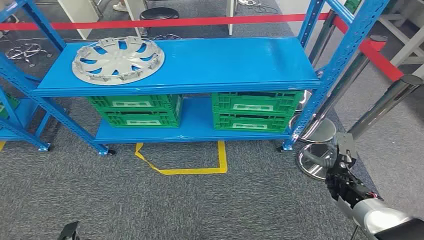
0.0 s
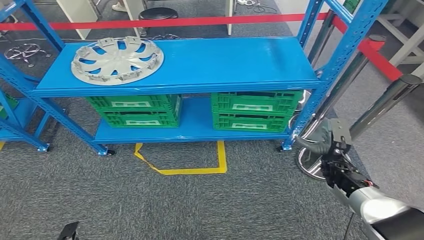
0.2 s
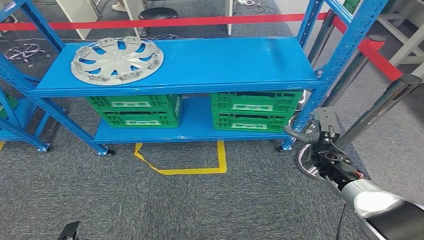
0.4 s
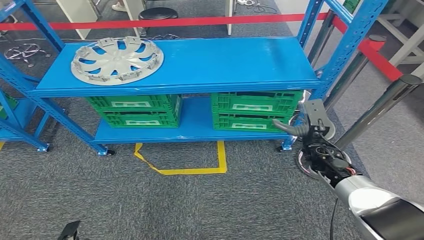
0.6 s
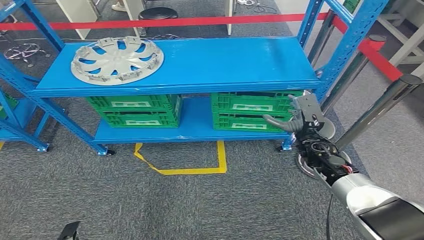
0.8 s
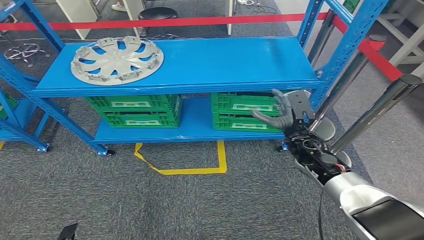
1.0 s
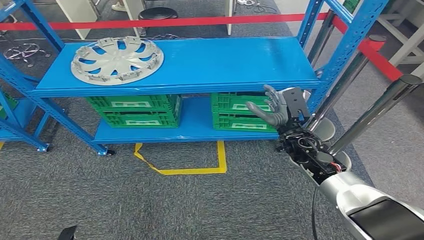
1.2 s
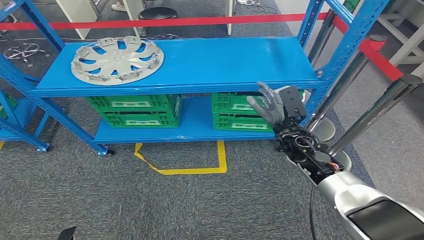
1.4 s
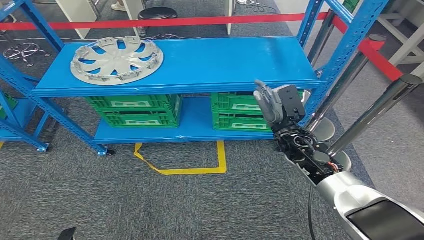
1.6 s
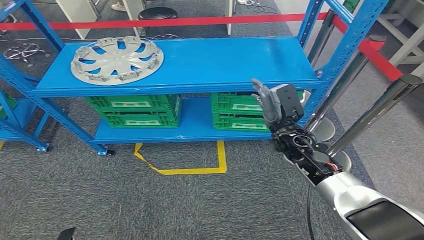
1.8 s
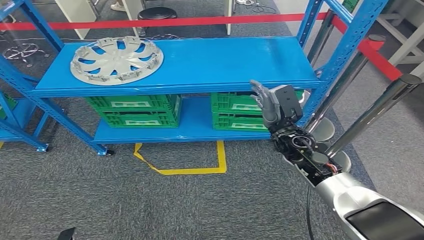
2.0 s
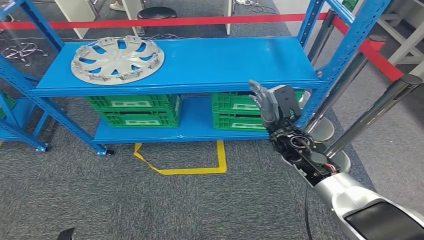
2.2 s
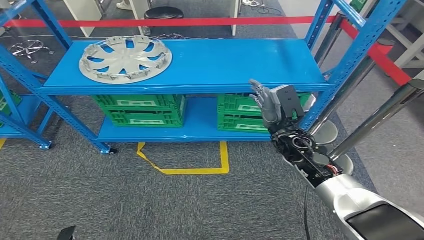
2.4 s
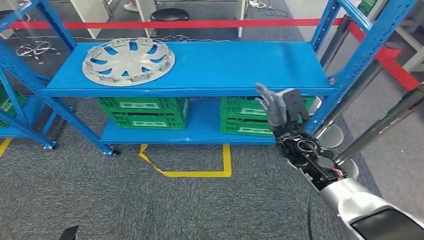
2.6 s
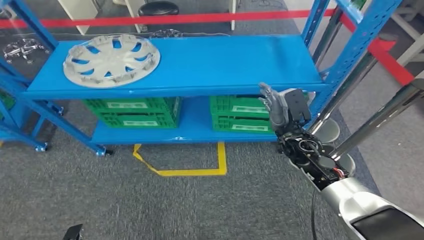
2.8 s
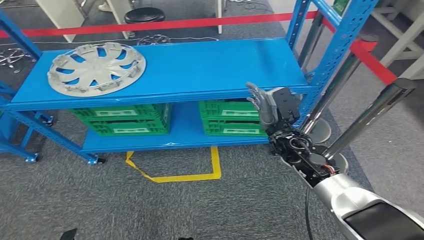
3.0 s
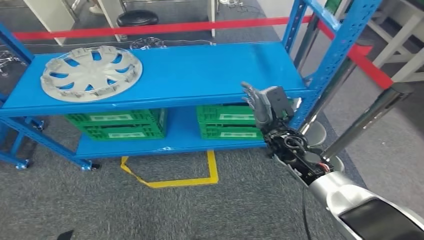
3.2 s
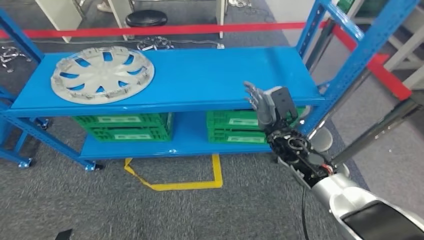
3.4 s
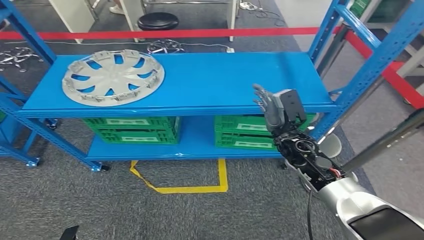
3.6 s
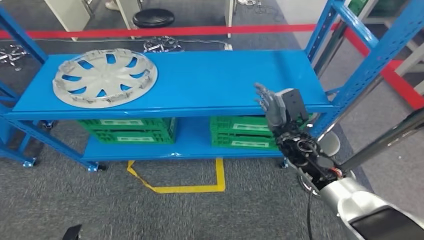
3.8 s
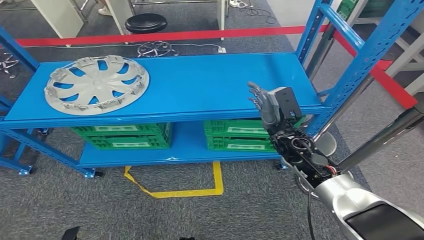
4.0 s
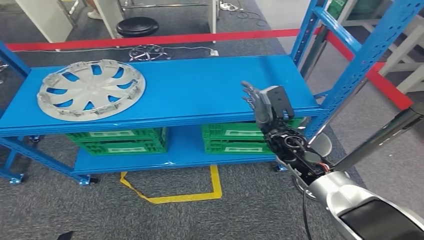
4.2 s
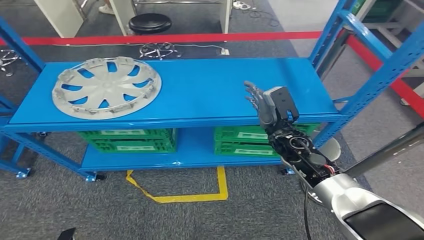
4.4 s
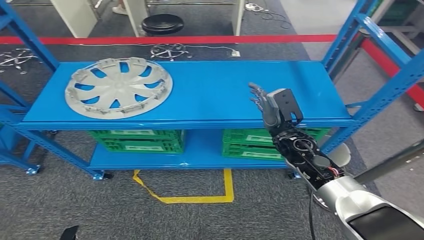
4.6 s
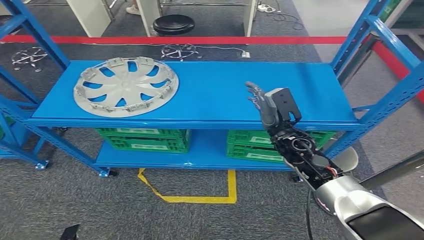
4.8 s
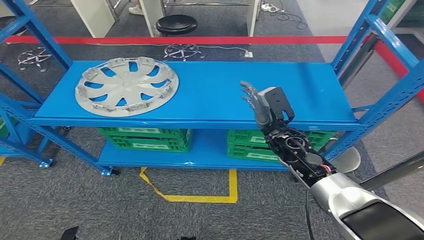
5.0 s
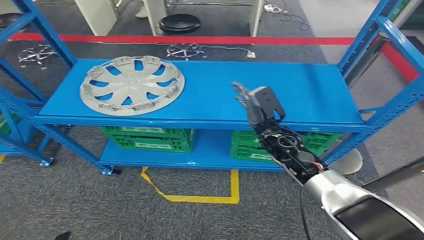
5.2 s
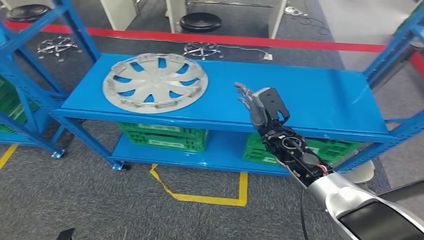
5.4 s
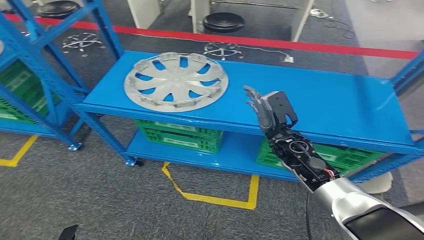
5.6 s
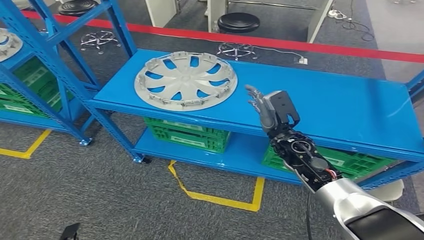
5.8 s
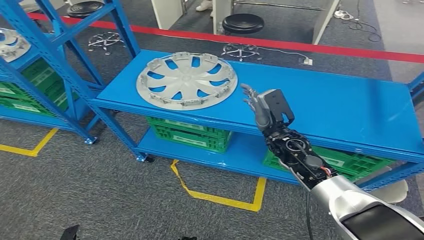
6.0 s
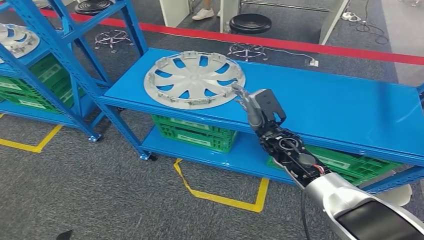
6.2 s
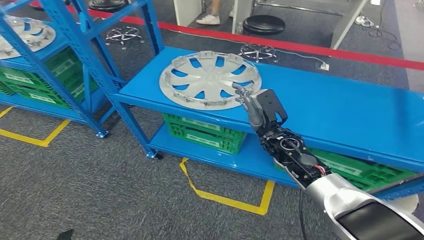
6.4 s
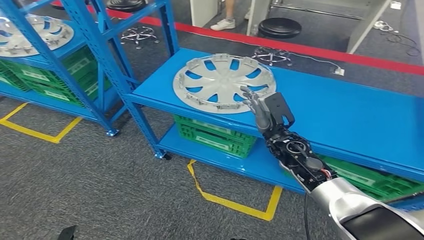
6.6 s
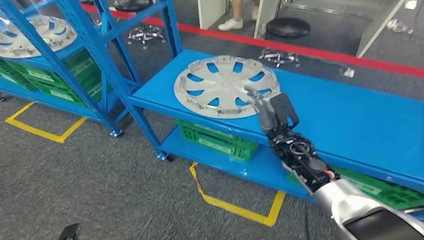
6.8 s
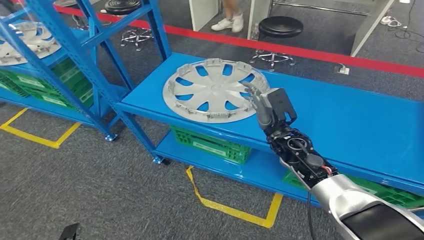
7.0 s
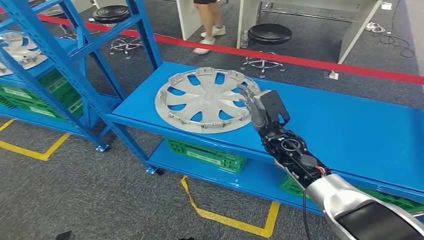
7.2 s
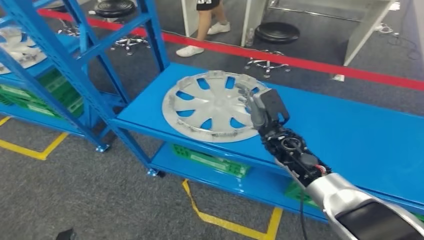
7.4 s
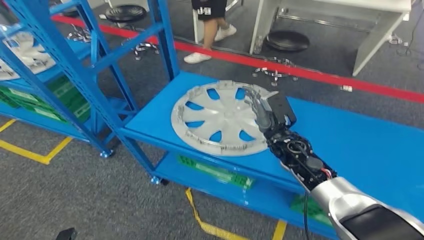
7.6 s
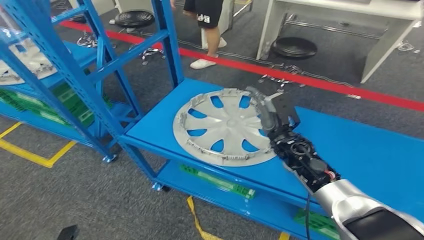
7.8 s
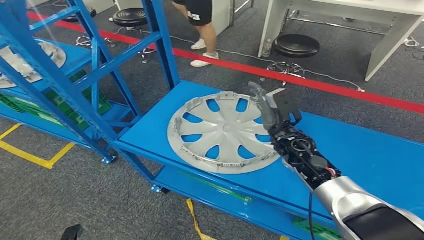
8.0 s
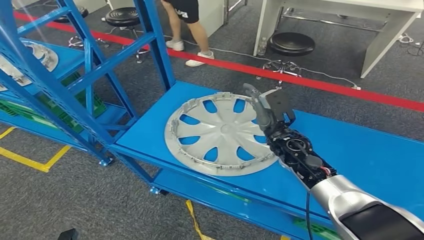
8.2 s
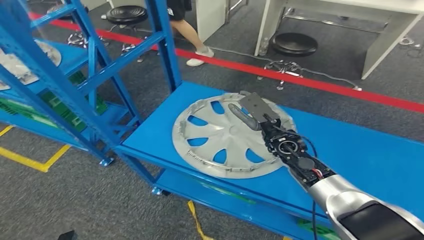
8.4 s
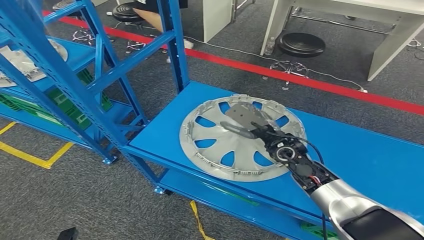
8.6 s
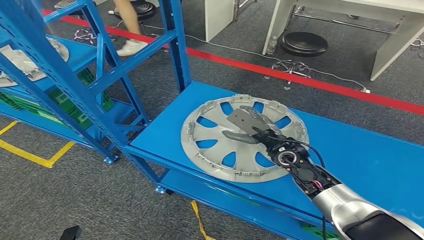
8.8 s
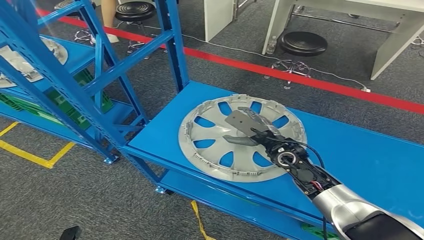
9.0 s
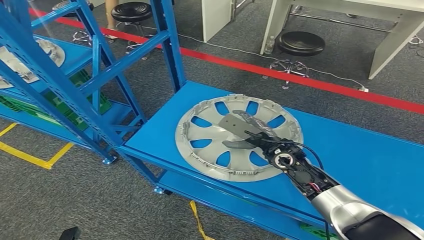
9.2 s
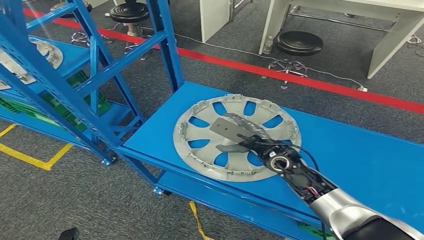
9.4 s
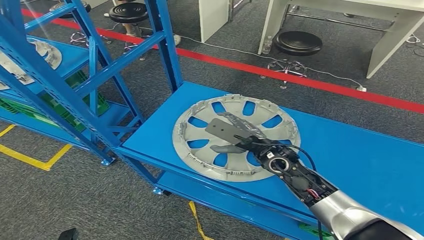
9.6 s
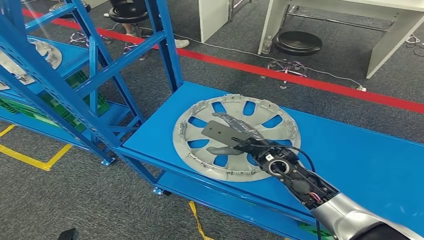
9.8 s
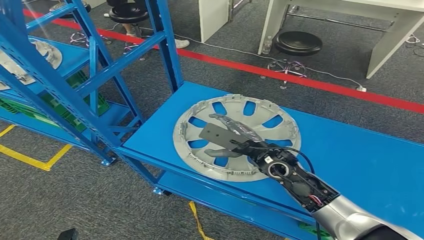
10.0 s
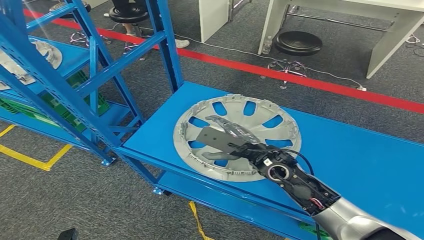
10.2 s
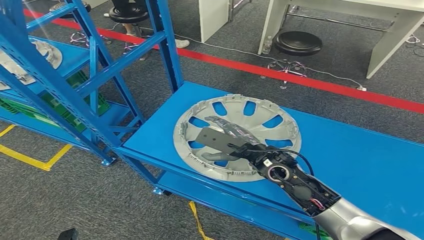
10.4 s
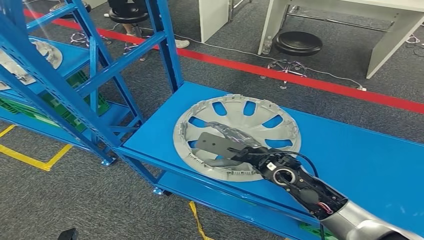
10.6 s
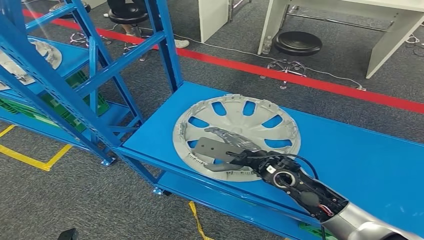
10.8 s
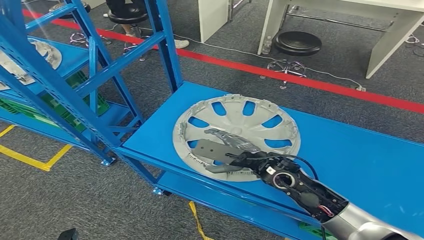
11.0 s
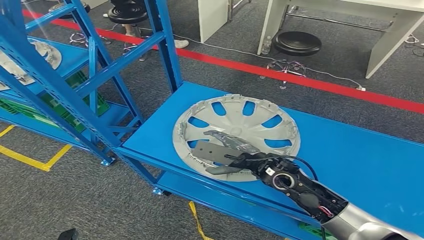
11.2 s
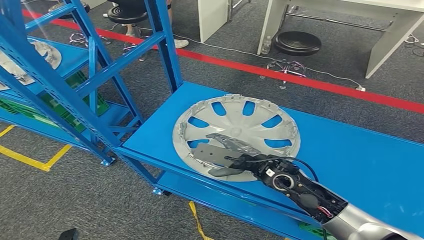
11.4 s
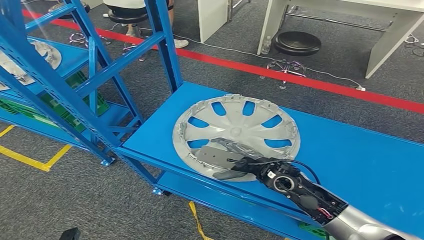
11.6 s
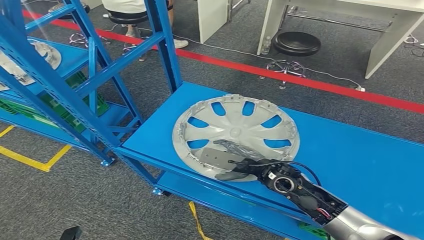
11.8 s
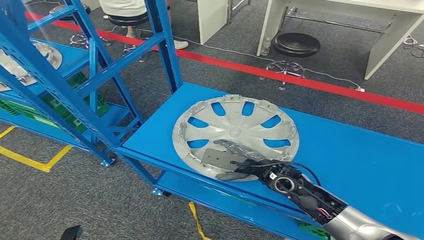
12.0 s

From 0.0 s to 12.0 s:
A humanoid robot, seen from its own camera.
From 10.4 s to 12.0 s: The right hand goes approximately 5 cm downward.

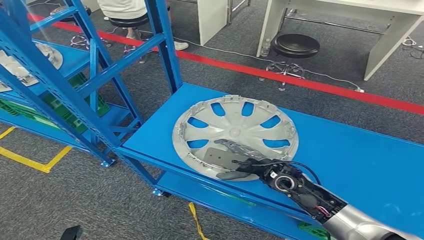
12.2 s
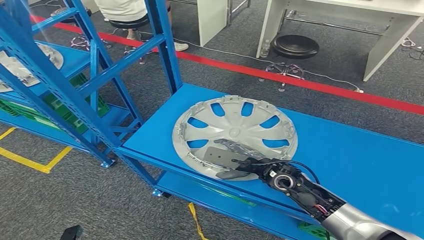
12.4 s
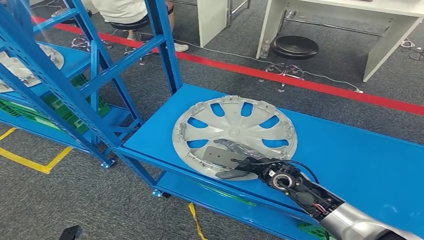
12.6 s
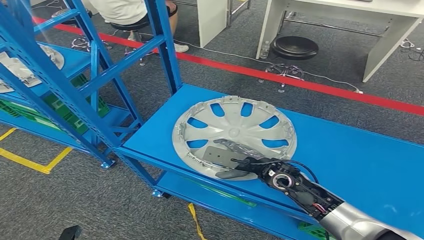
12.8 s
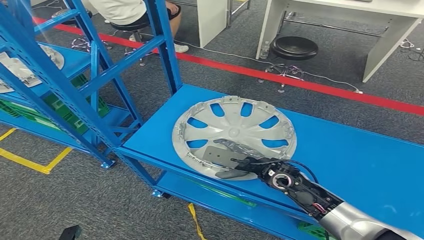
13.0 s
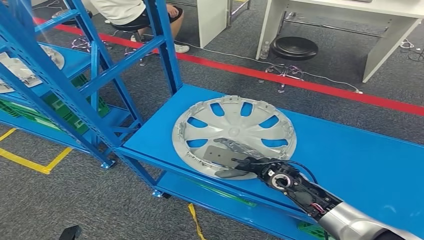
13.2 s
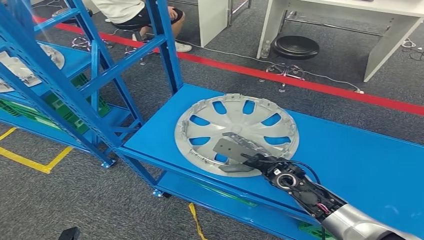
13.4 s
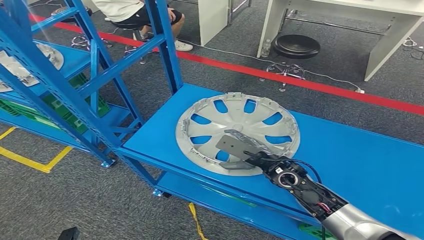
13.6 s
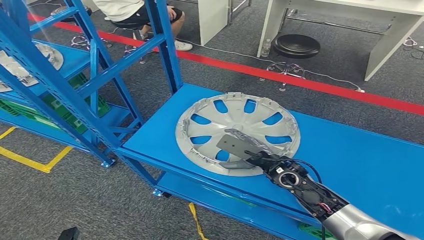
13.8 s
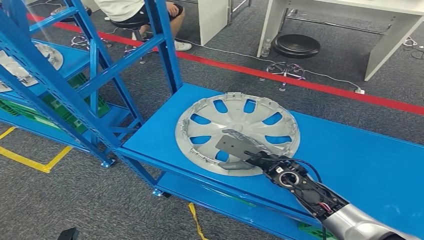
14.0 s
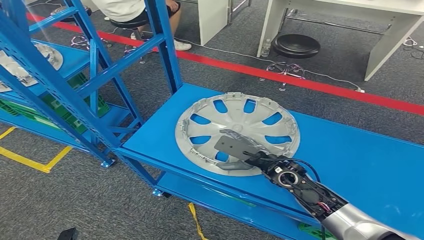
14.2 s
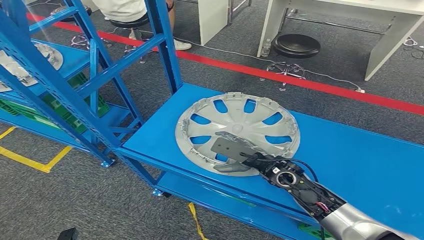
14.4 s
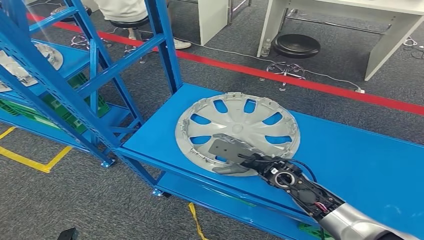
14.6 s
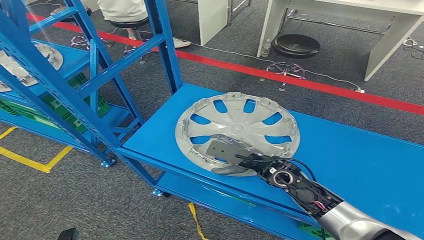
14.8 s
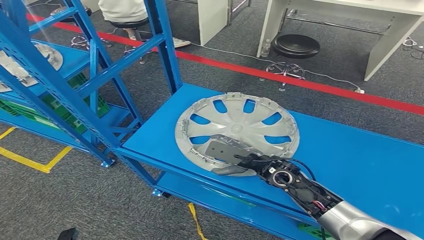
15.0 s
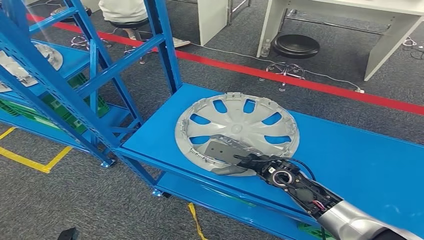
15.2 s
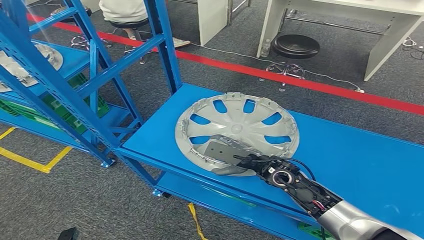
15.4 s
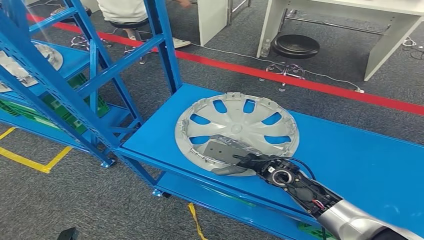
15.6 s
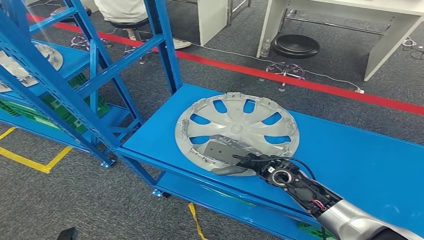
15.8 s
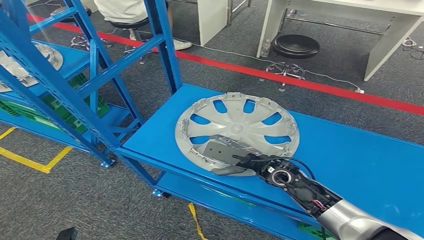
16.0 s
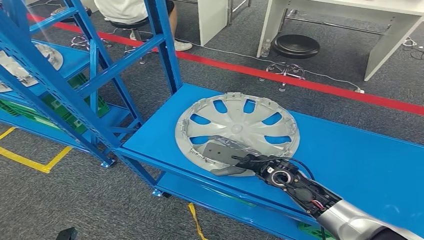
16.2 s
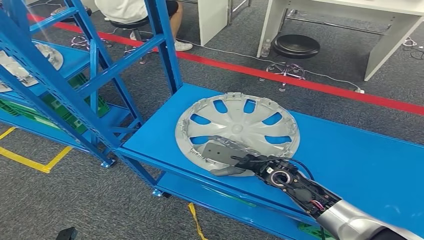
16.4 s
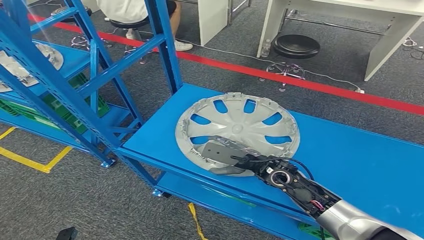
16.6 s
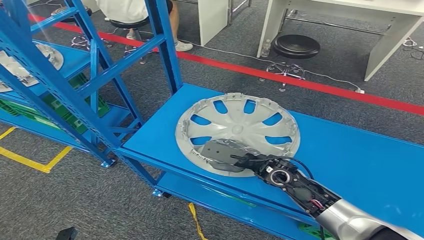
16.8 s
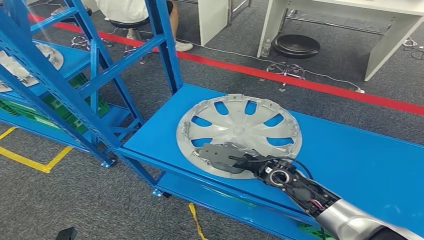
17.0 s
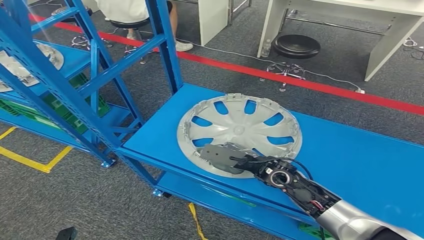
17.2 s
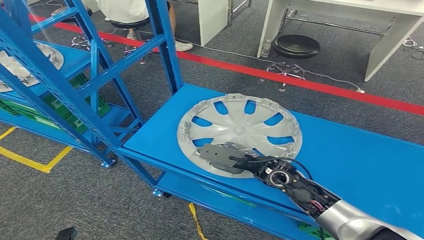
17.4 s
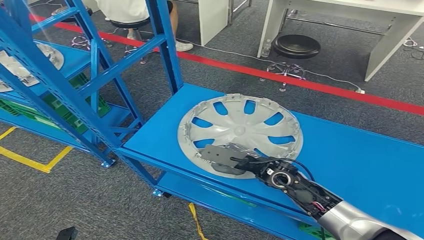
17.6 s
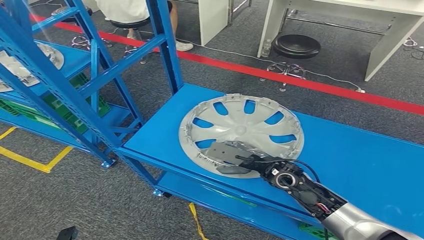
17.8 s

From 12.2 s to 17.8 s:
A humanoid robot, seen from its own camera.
Step, from 12.2 s to 17.8 s: Pick up the small component from the shelf.
From 12.2 s to 15.0 s: The hands move only a little.
From 15.0 s to 16.4 s: Neither hand changes place.
From 16.4 s to 17.8 s: Neither hand changes place.
